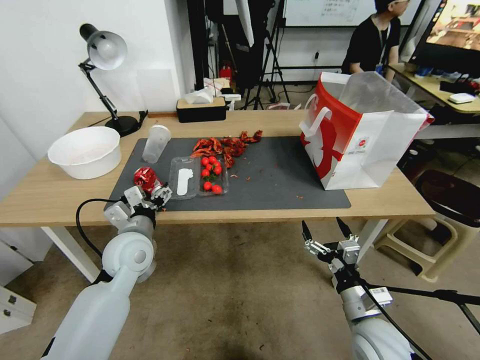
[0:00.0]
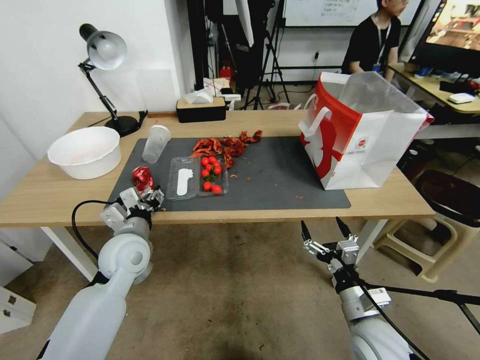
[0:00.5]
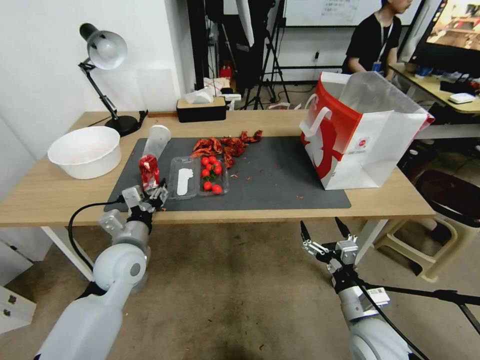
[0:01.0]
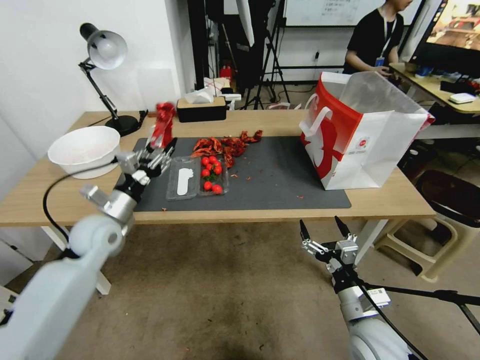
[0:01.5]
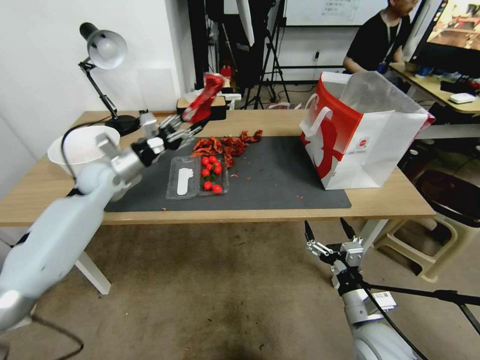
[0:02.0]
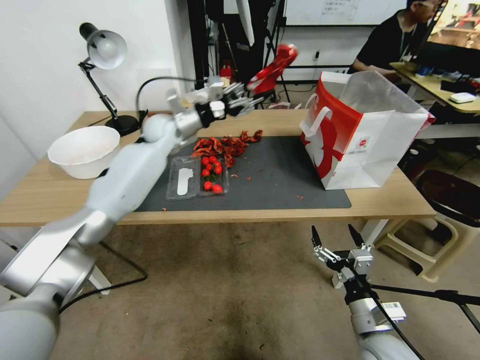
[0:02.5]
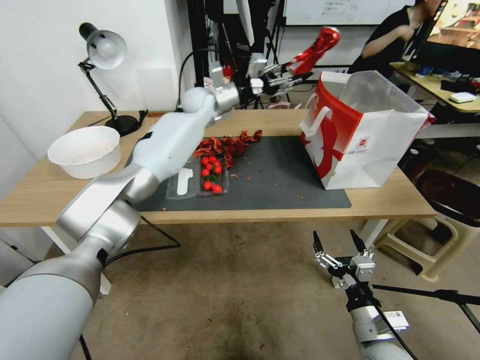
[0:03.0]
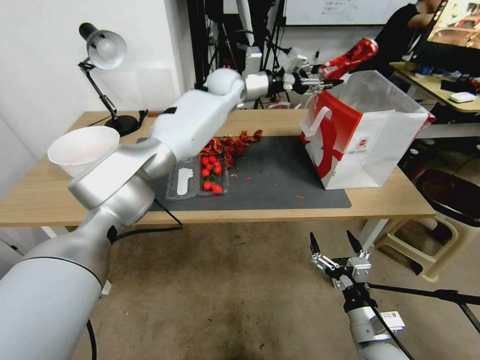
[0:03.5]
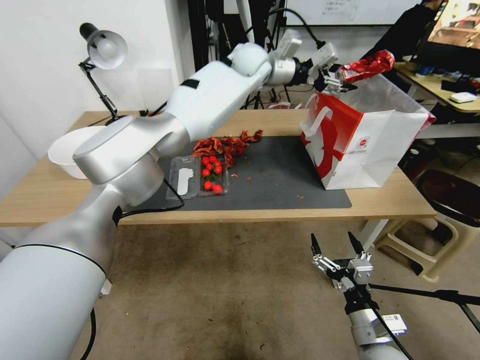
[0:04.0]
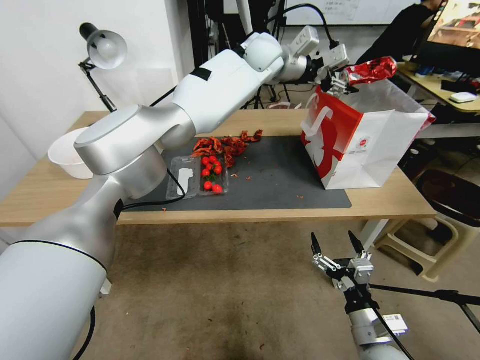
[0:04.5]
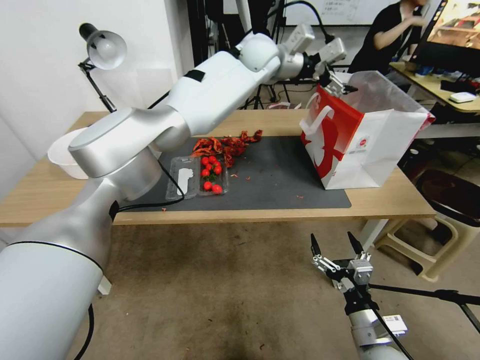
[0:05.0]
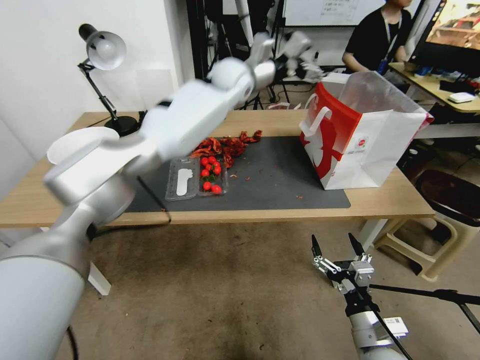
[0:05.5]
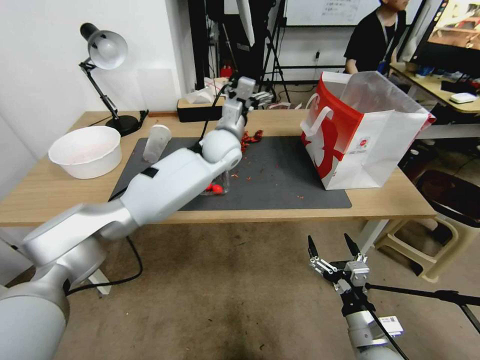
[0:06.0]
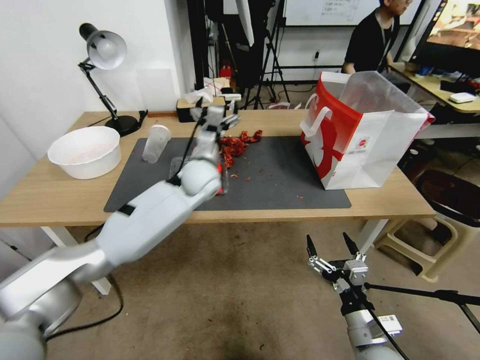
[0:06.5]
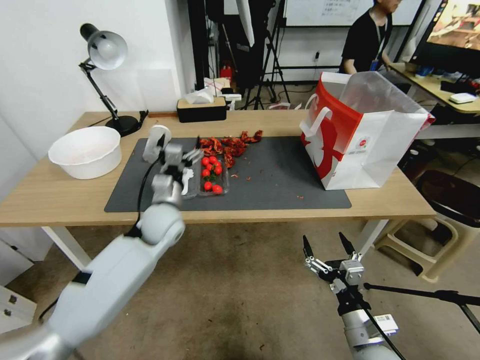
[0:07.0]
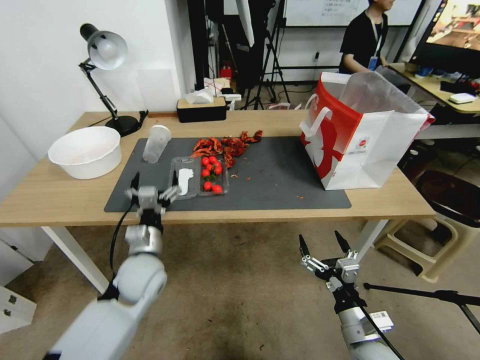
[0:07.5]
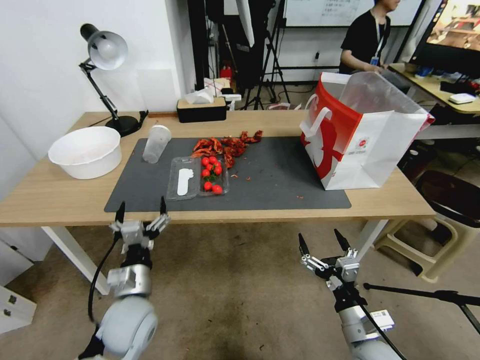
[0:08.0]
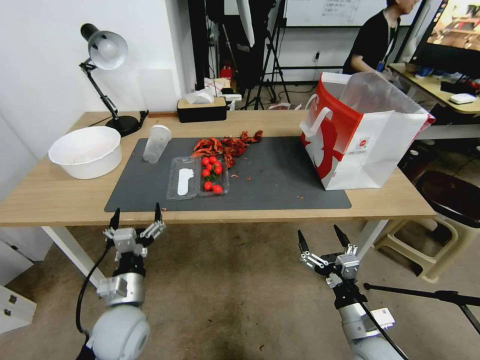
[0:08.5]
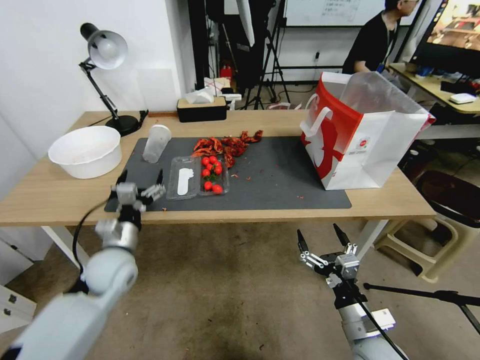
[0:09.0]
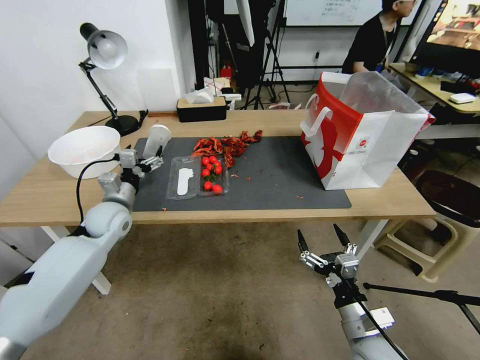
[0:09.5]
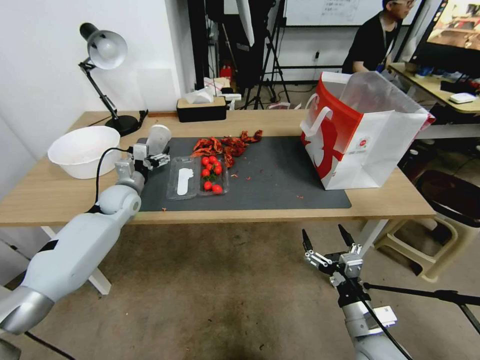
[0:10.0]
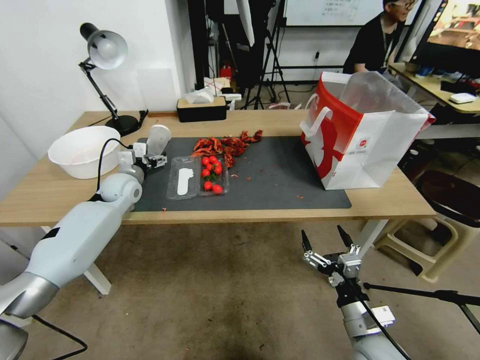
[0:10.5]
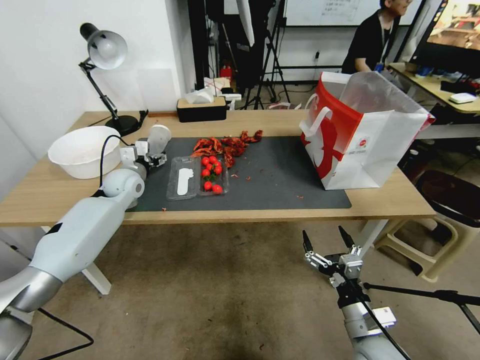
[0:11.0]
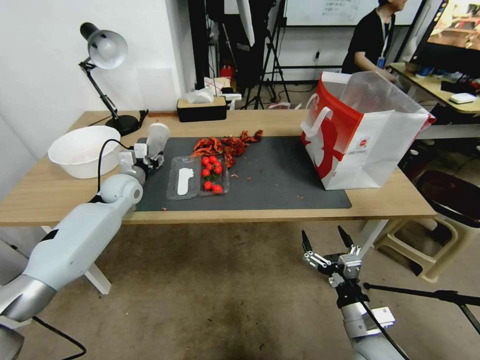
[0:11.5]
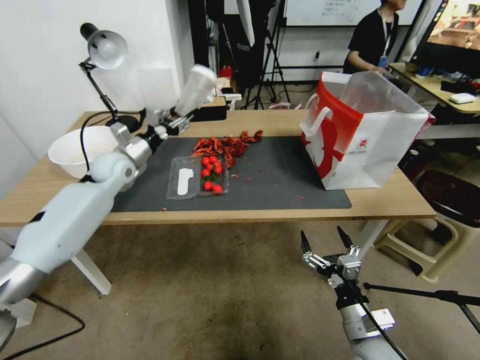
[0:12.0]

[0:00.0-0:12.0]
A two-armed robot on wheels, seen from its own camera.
0:00.0 to 0:02.0: The left gripper shifts roughly 15 cm to the left and forward, and closes up.
0:02.0 to 0:04.0: The left gripper moves to the right, upward and forward, approximately 50 cm.
0:04.0 to 0:06.0: The left gripper moves downward, backward and to the left, about 15 cm, and opens up.
0:06.0 to 0:08.0: The left gripper moves backward, downward and to the left, about 50 cm.
0:08.0 to 0:10.0: The left gripper travels forward by approximately 25 cm.
0:10.0 to 0:12.0: The left gripper travels upward by about 10 cm, and closes.

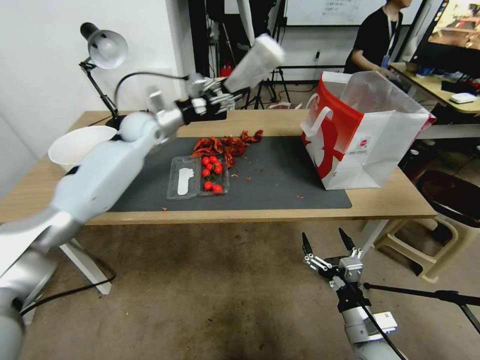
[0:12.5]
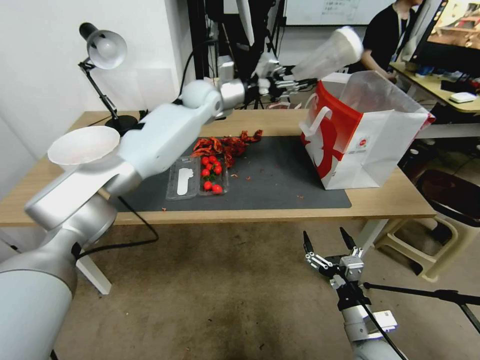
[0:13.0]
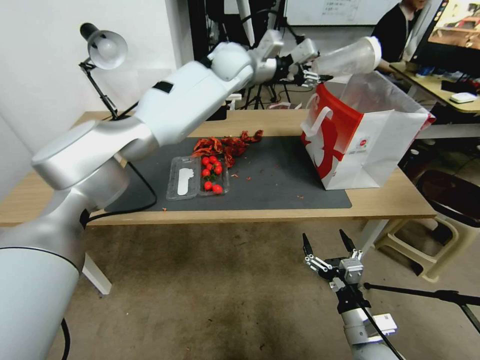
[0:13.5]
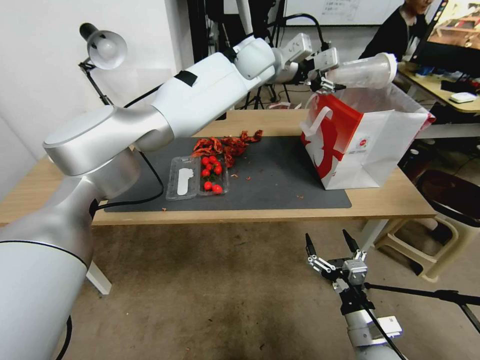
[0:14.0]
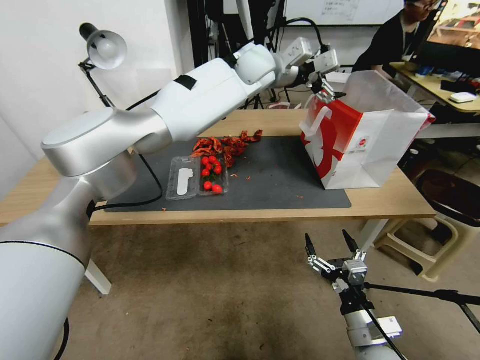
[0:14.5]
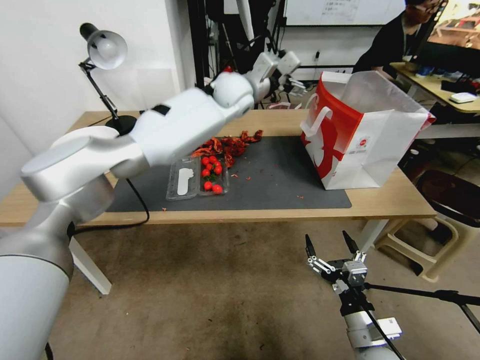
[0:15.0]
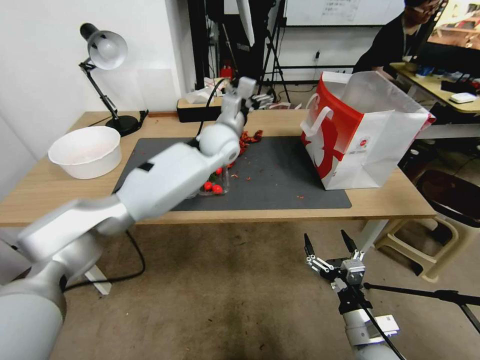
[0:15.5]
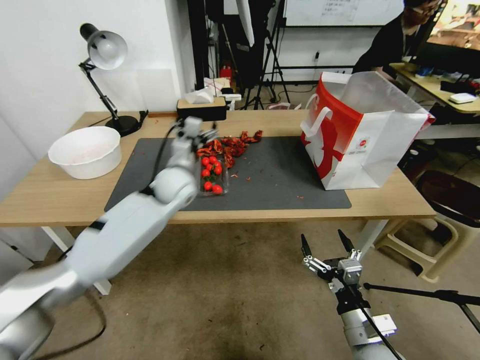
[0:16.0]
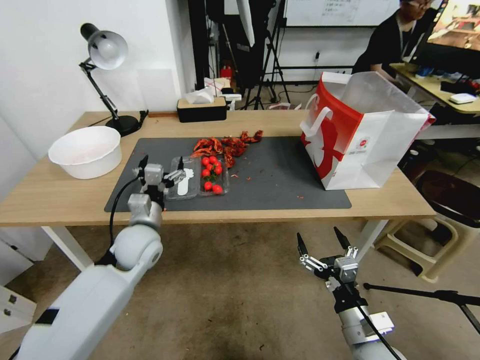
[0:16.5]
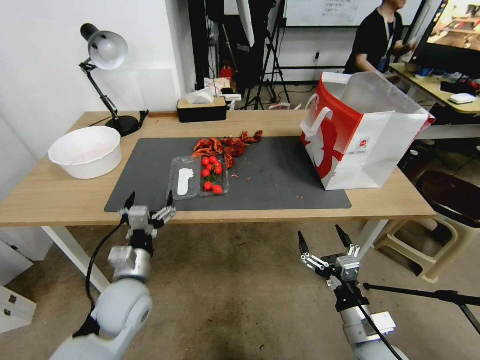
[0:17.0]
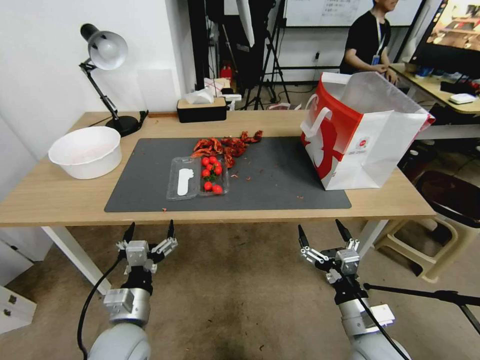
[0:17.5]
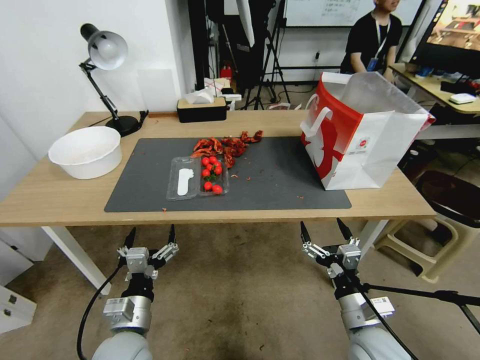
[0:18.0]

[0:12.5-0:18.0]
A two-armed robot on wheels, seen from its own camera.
0:12.5 to 0:14.5: The left gripper is displaced to the right and upward by about 35 cm, and opens.
0:14.5 to 0:16.0: The left gripper heads downward, to the left and backward, covering roughly 35 cm.
0:16.0 to 0:18.0: The left gripper shifts approximately 30 cm backward.

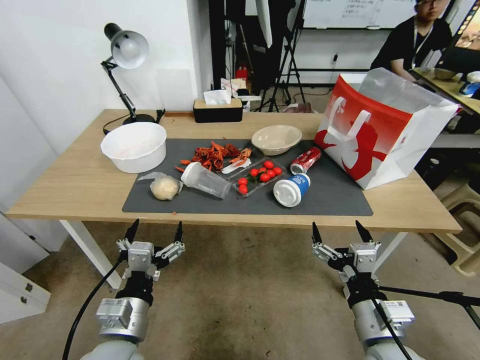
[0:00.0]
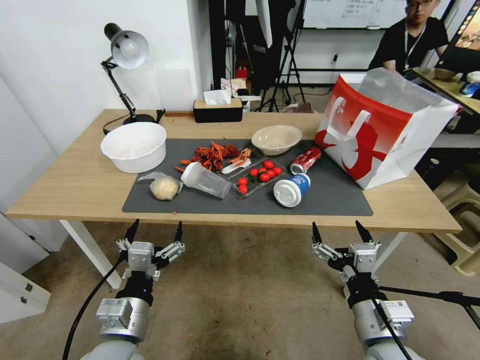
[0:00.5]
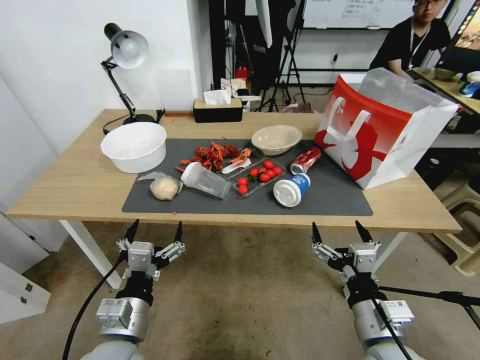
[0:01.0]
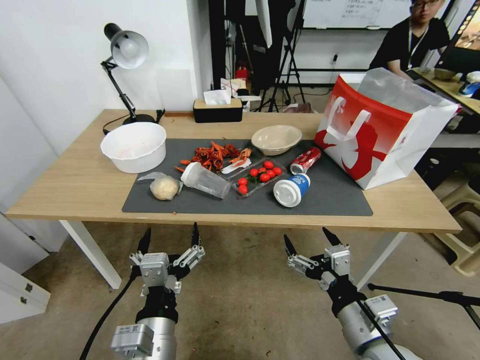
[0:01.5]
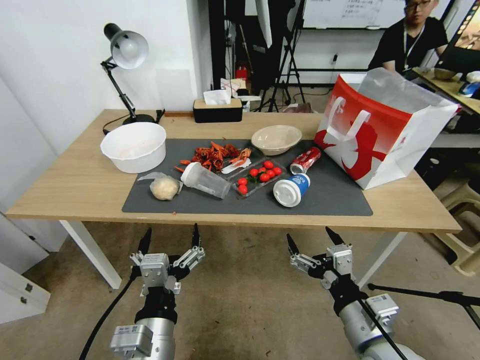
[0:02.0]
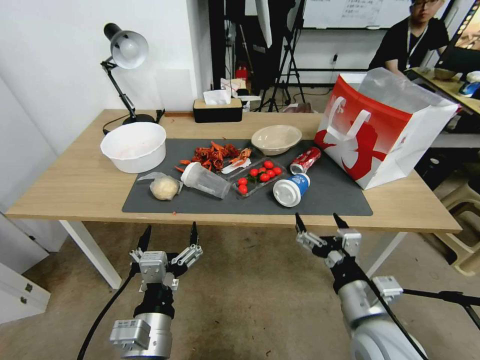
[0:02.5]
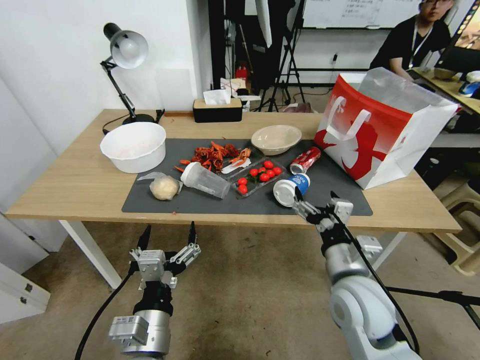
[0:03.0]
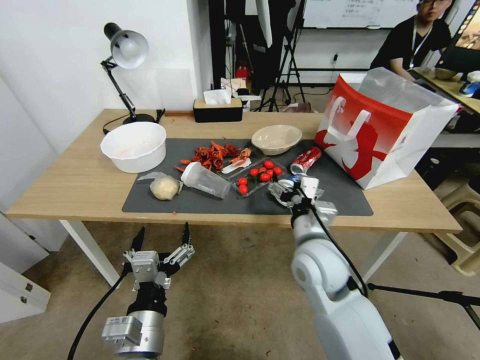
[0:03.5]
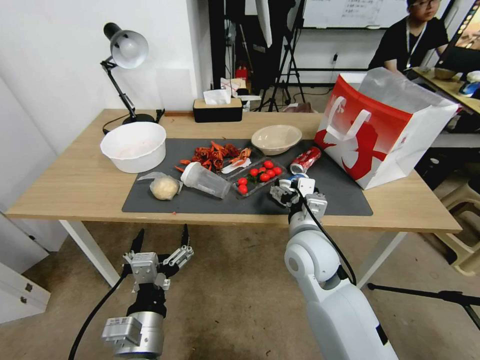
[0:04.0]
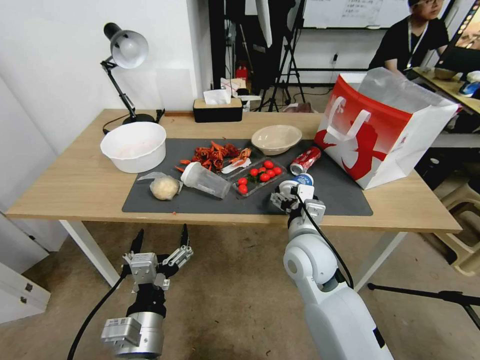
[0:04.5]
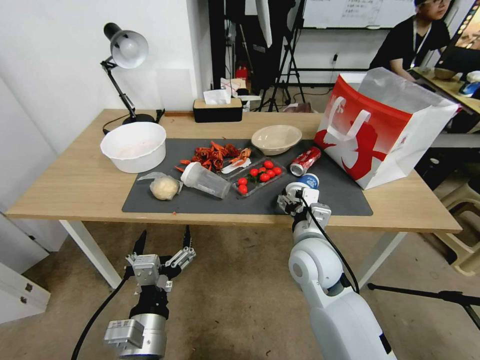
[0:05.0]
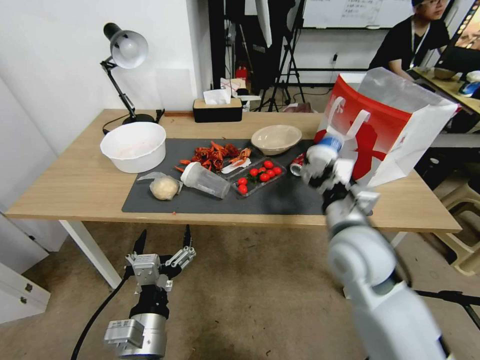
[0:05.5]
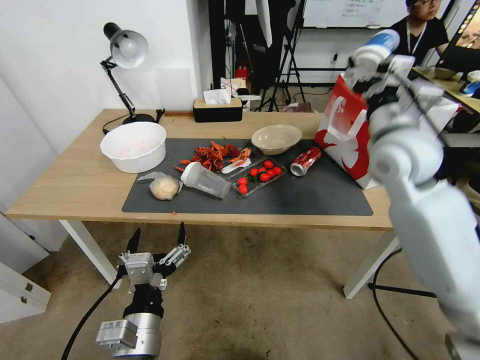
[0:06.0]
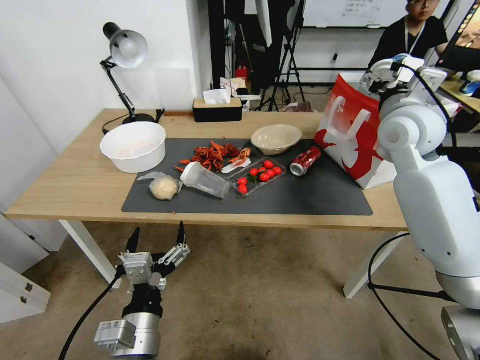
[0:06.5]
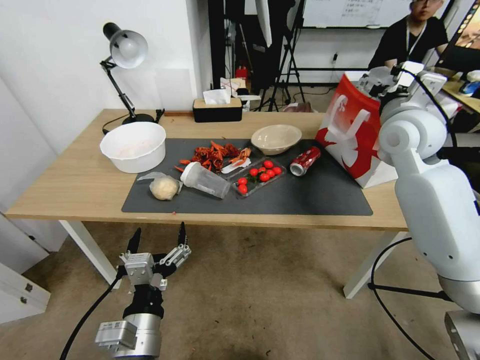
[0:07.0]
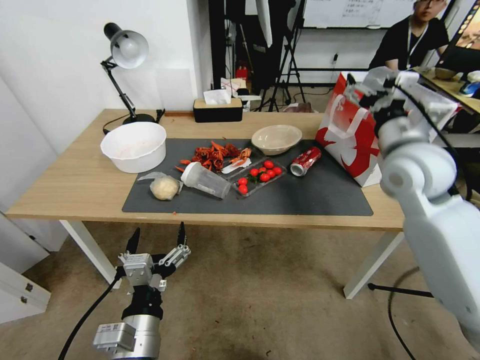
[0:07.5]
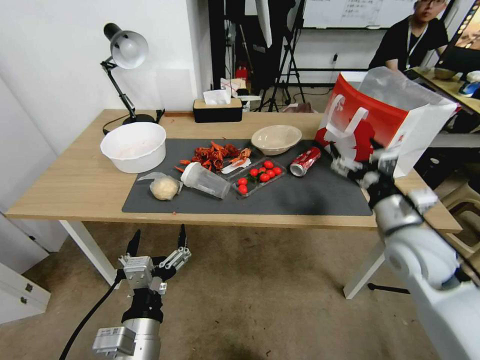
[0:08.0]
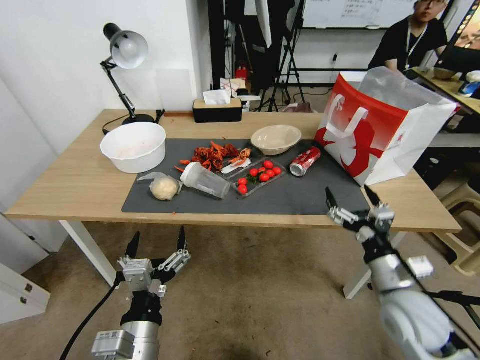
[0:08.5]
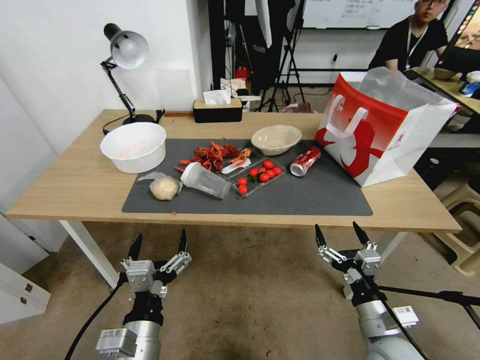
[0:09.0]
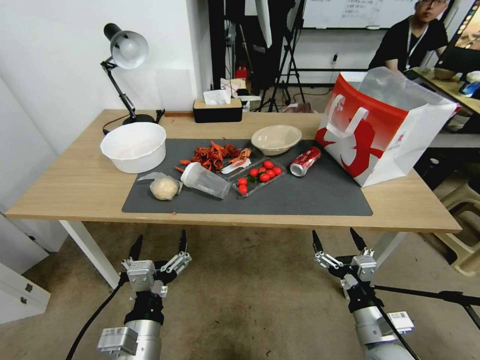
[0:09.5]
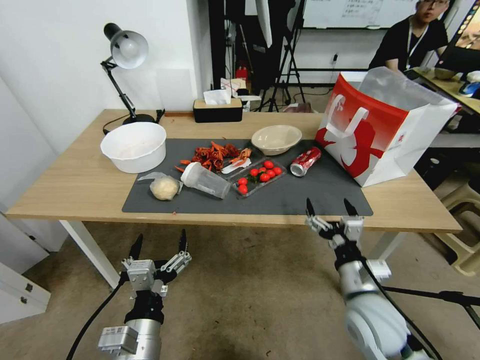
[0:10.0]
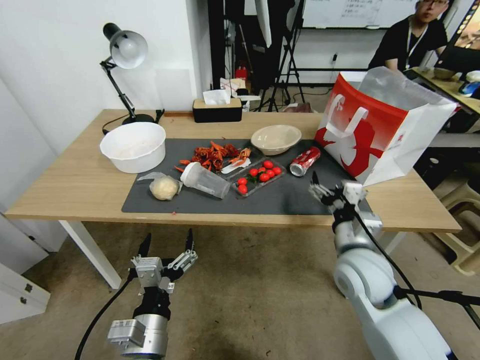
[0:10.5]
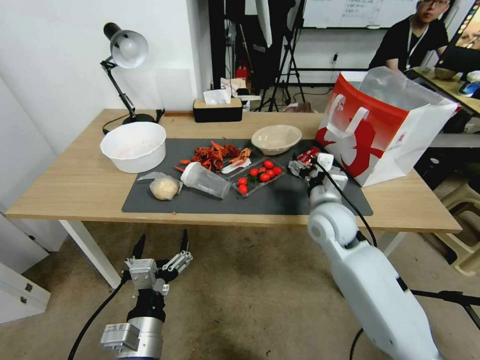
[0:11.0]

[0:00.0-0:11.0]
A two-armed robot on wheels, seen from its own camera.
0:02.0 to 0:03.5: The right gripper shifts about 10 cm forward.
0:03.5 to 0:05.5: The right gripper heads upward, covering some 5 cm.
0:05.5 to 0:07.5: The right gripper shifts approximately 20 cm upward, forward and to the right.
0:07.5 to 0:09.0: The right gripper travels downward and backward by some 35 cm.
0:09.0 to 0:11.0: The right gripper travels forward and upward by roughly 25 cm.
